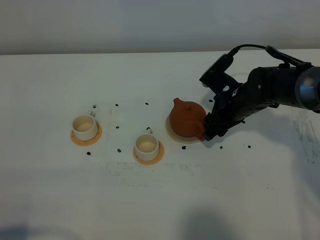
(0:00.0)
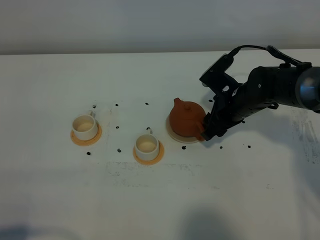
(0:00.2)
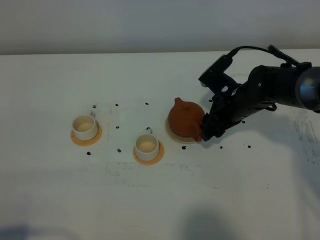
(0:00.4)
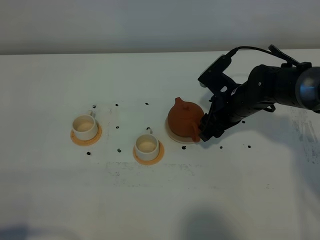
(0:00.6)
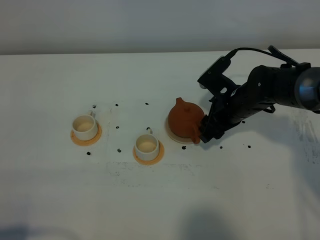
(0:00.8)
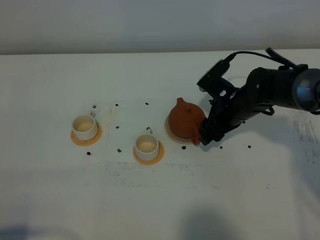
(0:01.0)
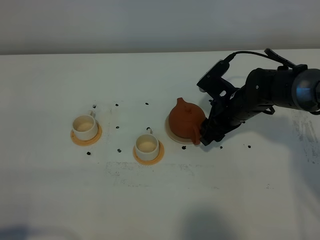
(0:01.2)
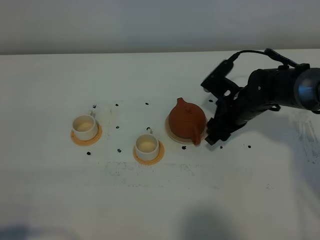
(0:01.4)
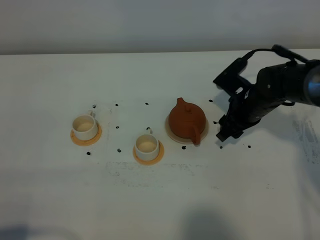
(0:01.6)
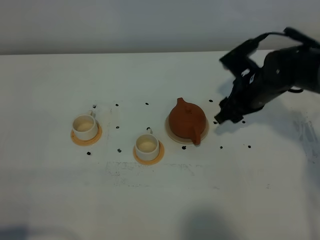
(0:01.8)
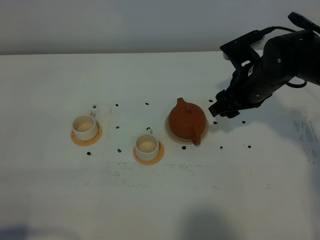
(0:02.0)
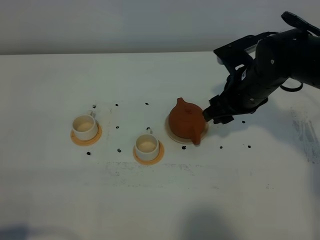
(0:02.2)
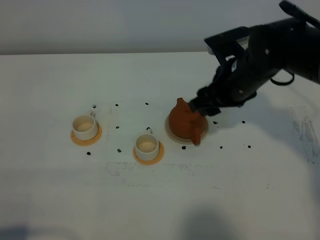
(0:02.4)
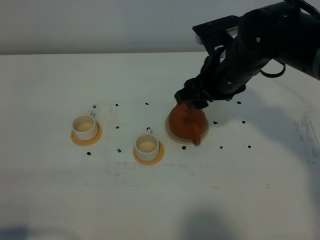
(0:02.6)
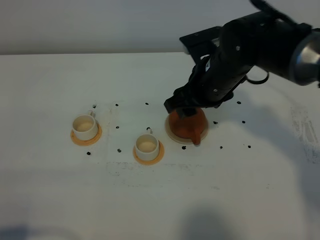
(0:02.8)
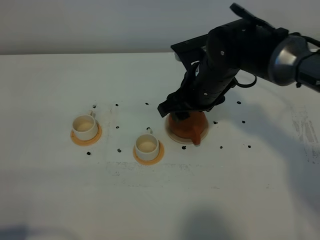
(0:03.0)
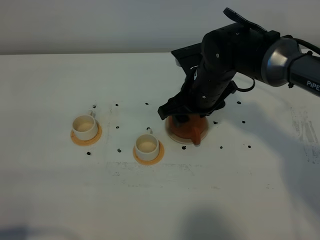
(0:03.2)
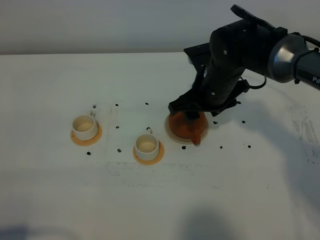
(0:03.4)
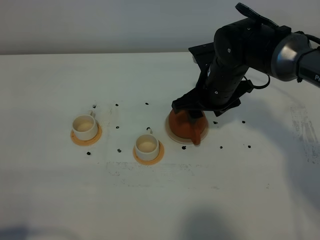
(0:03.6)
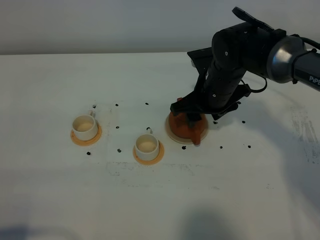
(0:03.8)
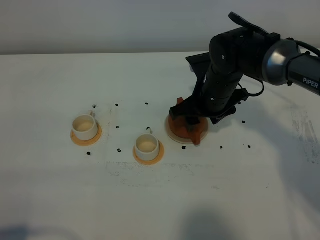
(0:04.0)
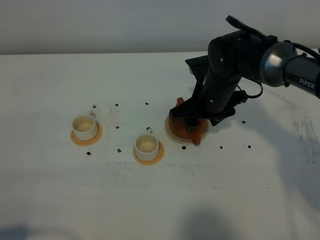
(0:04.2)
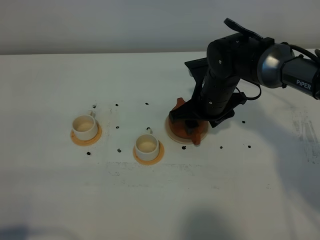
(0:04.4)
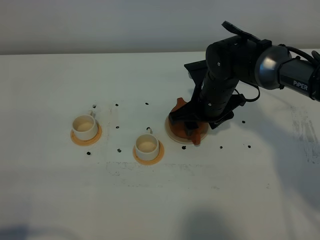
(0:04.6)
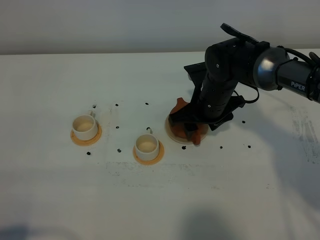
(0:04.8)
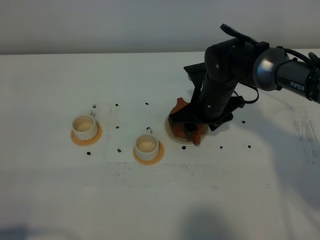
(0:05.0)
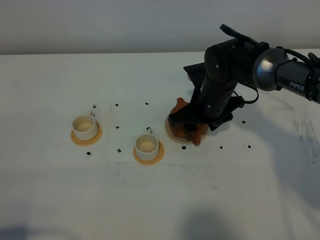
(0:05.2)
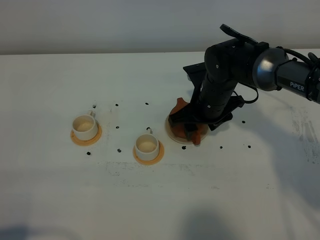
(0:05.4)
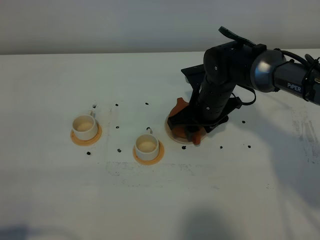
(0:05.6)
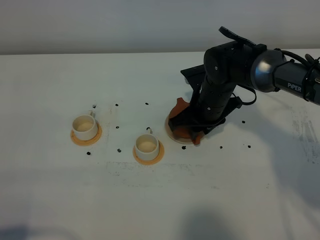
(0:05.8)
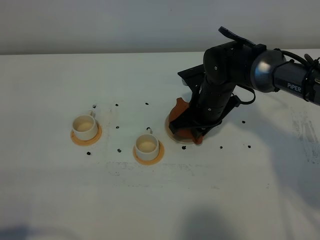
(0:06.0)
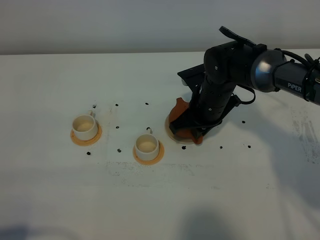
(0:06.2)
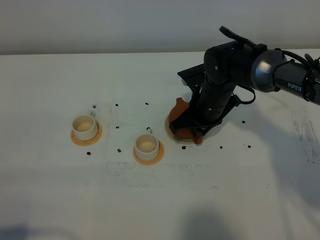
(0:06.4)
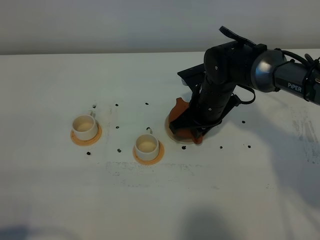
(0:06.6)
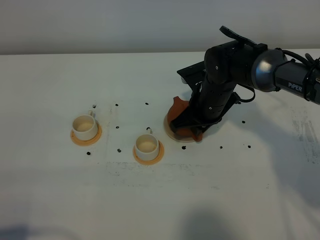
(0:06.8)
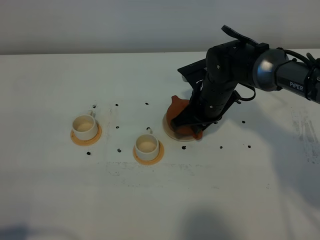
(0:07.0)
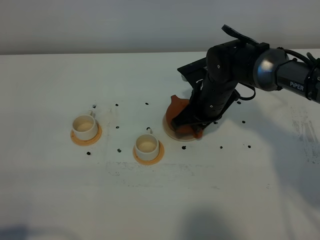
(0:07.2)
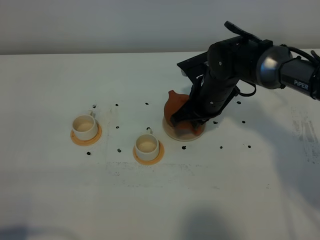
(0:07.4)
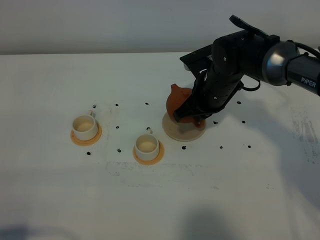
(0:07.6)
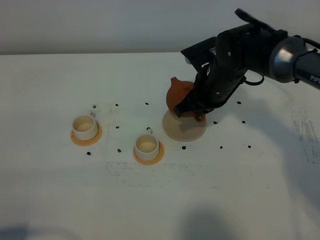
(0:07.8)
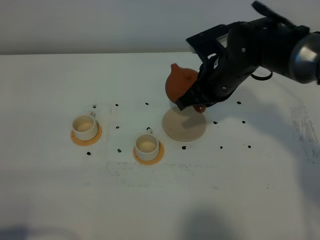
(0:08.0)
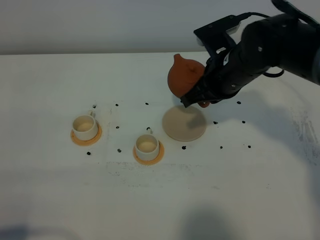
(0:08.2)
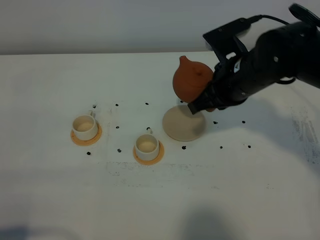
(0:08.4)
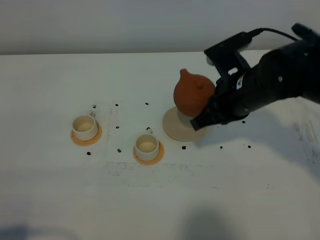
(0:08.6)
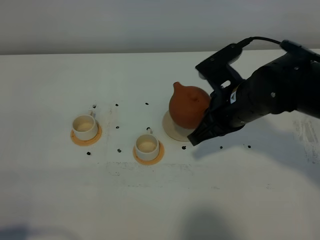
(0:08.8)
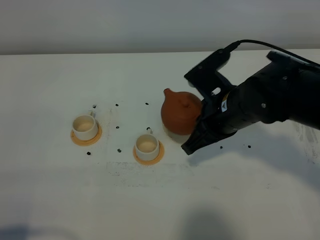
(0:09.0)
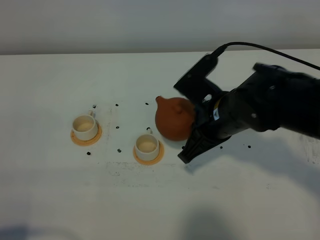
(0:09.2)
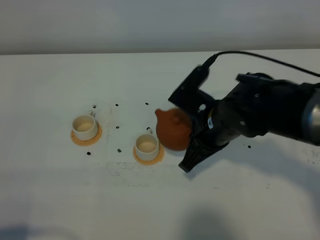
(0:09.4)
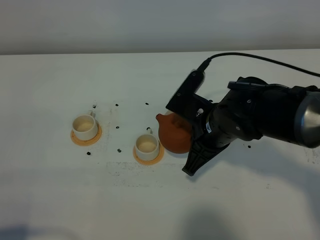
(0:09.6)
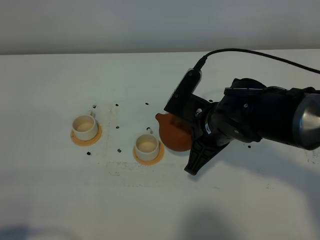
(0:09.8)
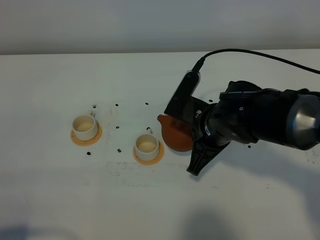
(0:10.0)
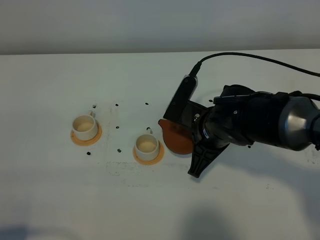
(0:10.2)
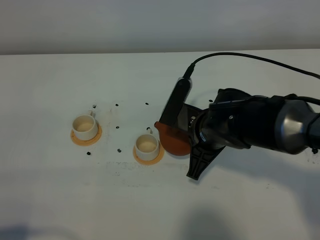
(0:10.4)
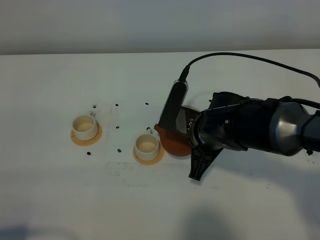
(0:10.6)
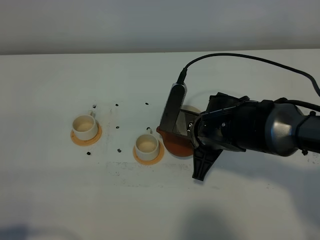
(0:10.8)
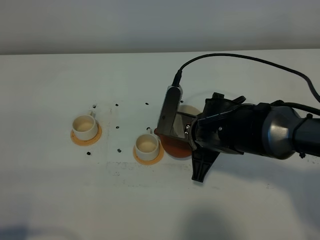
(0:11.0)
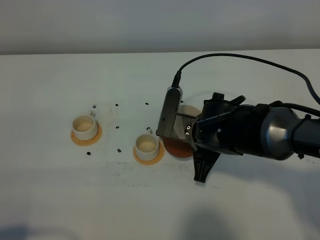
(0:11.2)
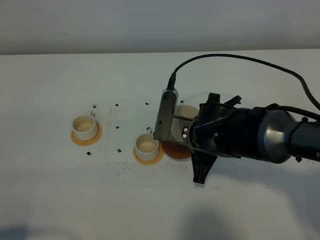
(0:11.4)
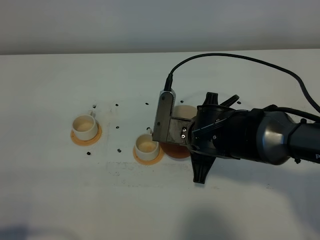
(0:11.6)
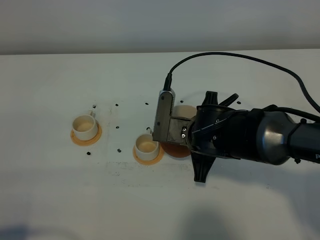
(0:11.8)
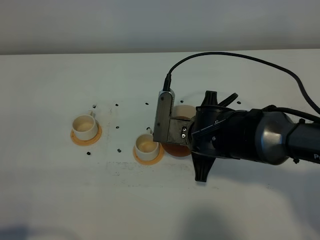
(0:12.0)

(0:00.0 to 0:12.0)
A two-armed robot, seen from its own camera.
Task of the whole recording: grasp the brown teapot and pour the tea into the two white teacups one by one, put the brown teapot back in its original place.
Step, 0:00.0 - 0:07.4: Pick up the teapot with the right gripper.
0:00.0 - 0:01.6: The grippers move only a little.
0:01.6 - 0:03.0: The right gripper goes approximately 15 cm to the left and upward.
0:03.0 - 0:04.4: The right gripper shifts by some 5 cm.
0:04.4 - 0:06.0: The right gripper closes up.
0:06.0 - 0:07.6: The grippers move only a little.
0:07.6 - 0:09.0: The right gripper heads backward, covering about 10 cm.
0:09.0 - 0:10.4: The right gripper changes place by roughly 5 cm.
0:10.4 - 0:12.0: The grippers make only small movements.

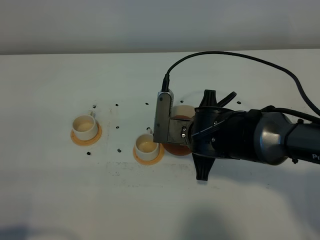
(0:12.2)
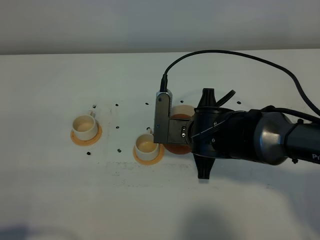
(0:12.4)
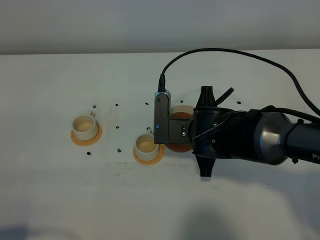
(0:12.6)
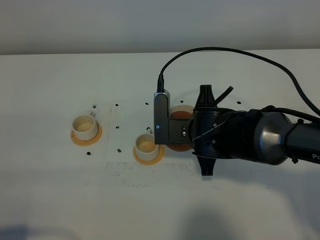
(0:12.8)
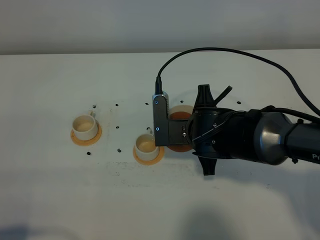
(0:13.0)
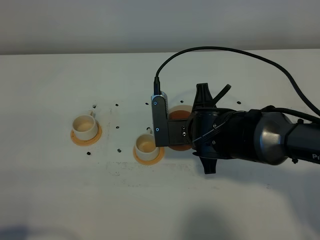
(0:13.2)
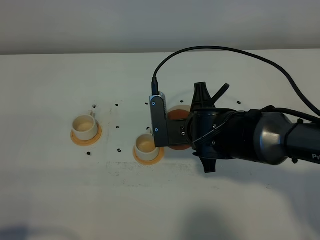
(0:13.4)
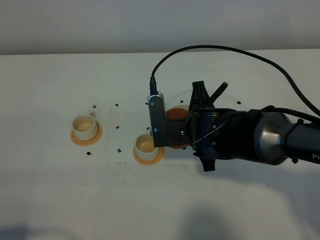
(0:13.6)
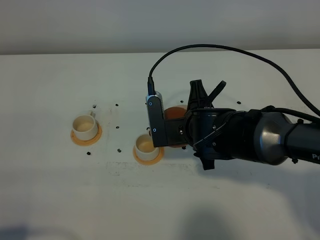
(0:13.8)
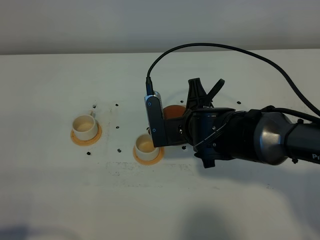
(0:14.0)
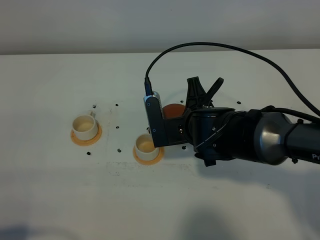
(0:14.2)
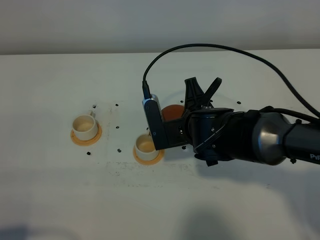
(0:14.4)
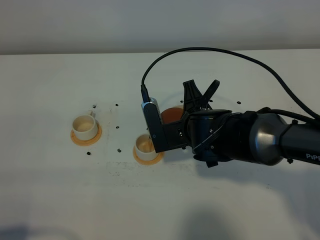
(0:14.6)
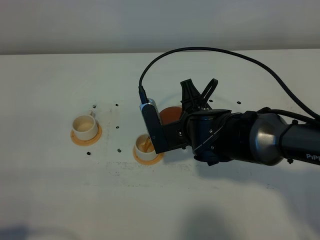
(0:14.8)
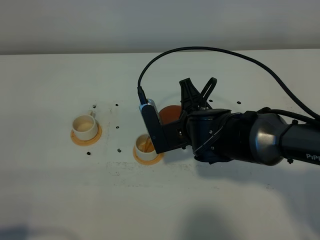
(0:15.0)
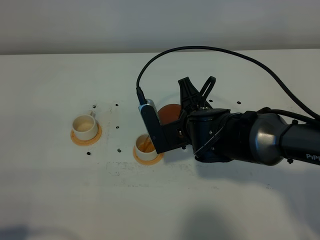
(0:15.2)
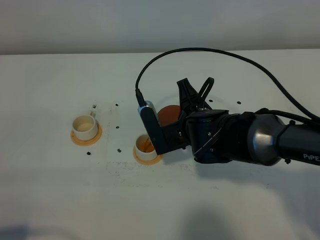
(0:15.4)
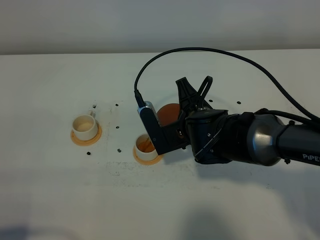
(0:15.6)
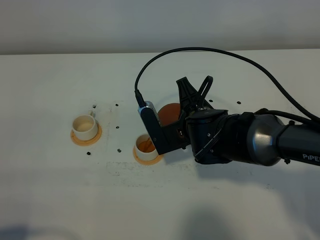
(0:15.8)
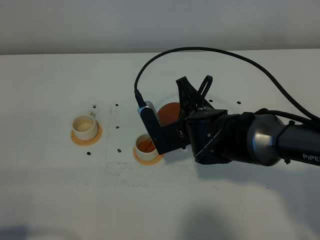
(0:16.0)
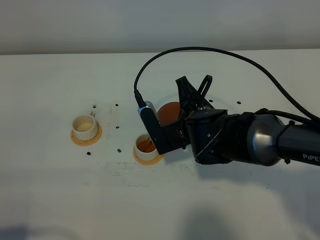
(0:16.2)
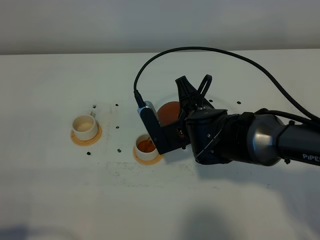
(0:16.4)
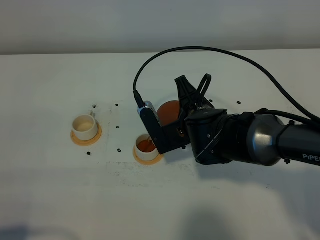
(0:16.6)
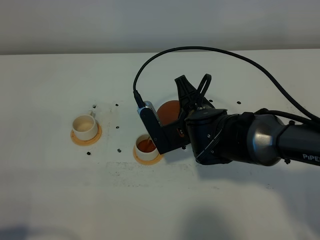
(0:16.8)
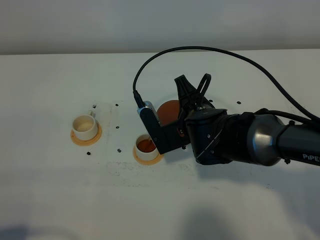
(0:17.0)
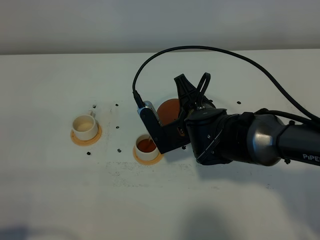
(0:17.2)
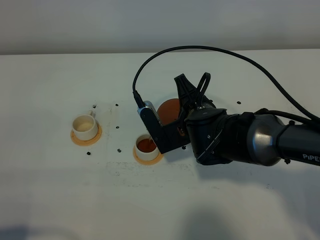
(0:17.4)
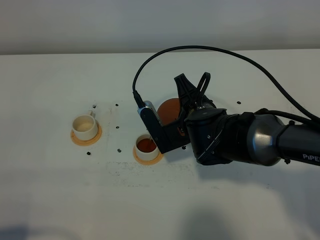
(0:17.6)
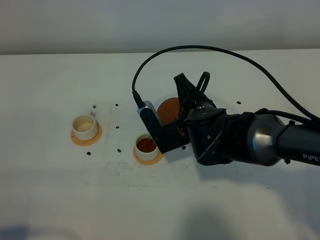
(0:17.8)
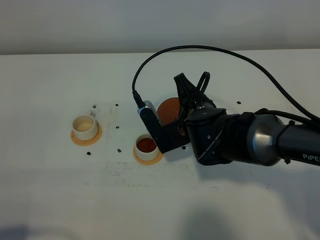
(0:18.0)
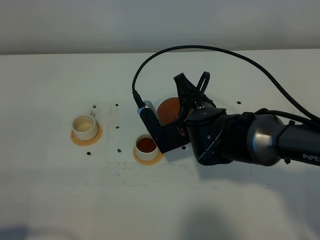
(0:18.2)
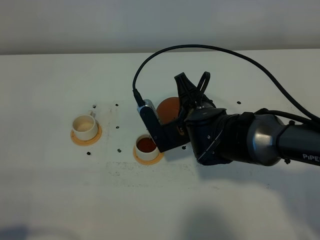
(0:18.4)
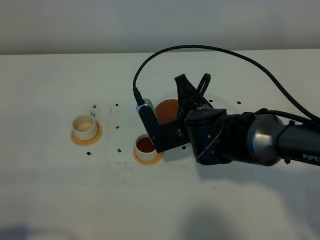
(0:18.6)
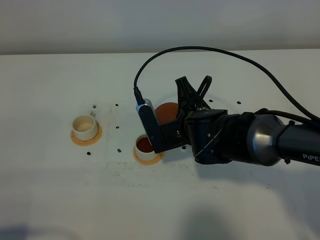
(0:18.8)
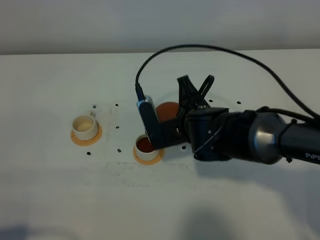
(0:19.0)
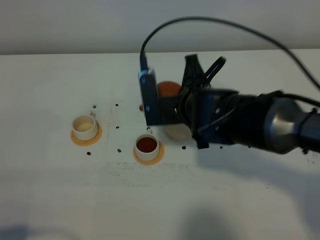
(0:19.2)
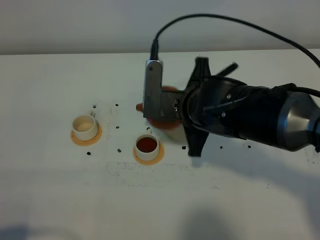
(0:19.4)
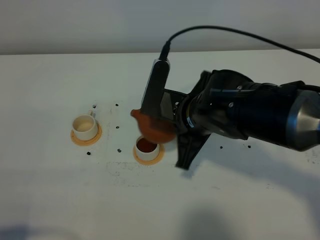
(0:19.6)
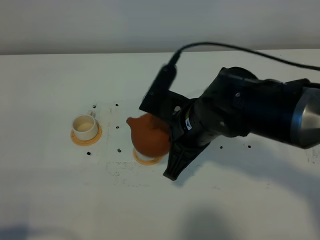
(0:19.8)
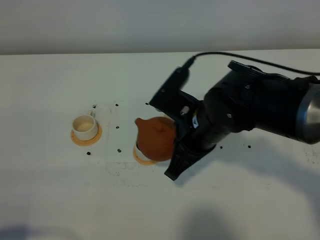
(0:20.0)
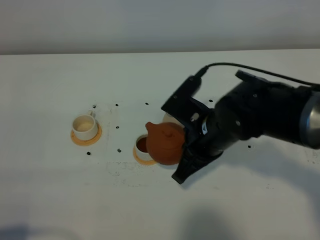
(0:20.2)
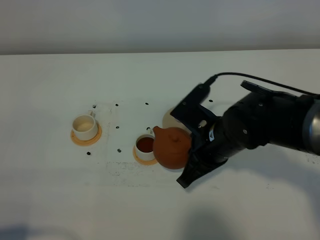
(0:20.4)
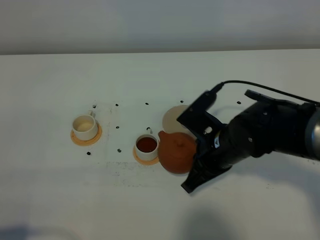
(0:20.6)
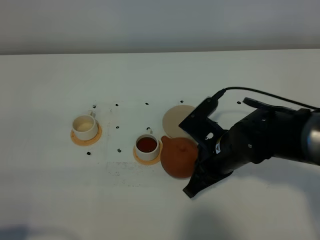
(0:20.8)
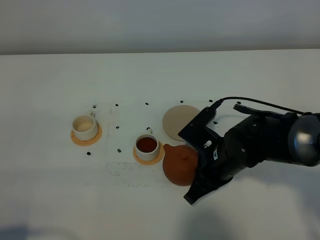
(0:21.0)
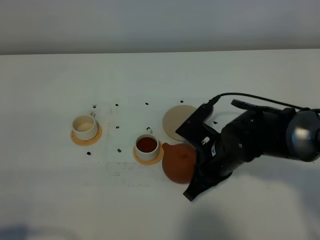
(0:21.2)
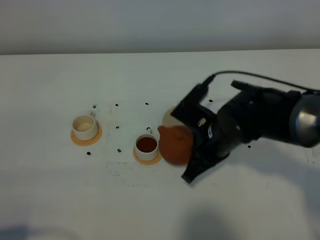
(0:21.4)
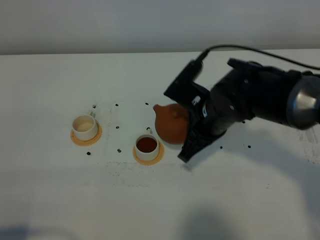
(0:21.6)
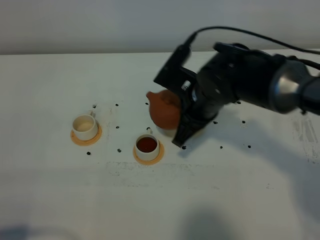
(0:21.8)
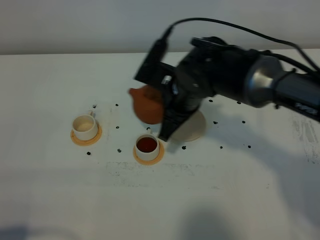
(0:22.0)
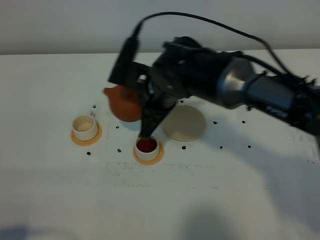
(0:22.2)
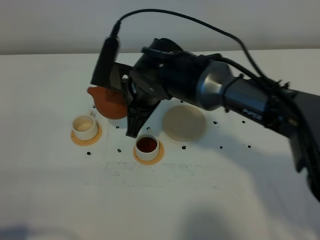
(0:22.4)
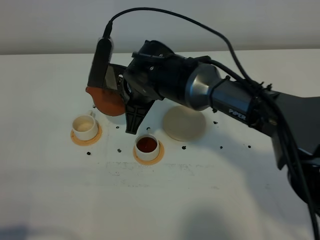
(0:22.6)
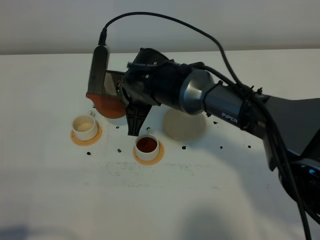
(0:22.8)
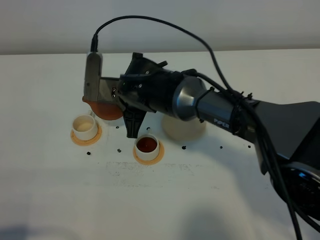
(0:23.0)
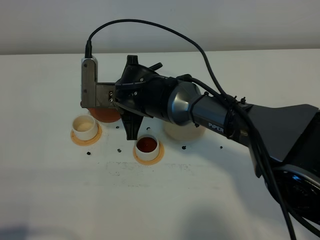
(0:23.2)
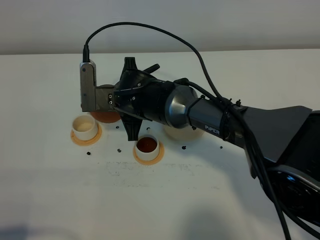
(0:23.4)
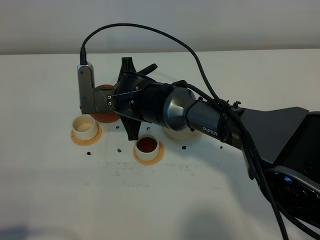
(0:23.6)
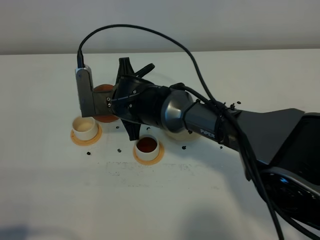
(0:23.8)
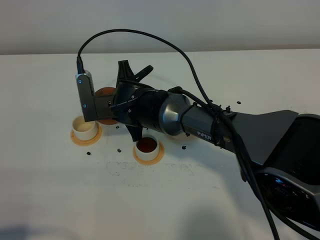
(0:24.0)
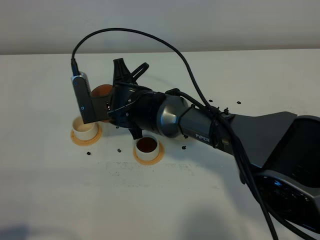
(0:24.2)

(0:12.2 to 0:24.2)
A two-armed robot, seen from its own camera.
Task of the whole recording: grasp the brown teapot and pour the tea into the two white teacups one by one, put the brown teapot back in its original place.
Step, 0:12.2 - 0:19.0: Pour tea into the teacup with the right gripper.
0:12.2 - 0:13.8: The grippers make only small movements.
0:13.8 - 0:16.6: The grippers make only small movements.
0:16.6 - 0:18.2: Neither gripper changes place.
0:18.2 - 0:19.8: The right gripper travels upward by some 5 cm.
0:19.8 - 0:21.2: The right gripper goes about 10 cm downward.
0:21.2 - 0:22.6: The right gripper travels to the left, forward and upward by some 15 cm.
0:22.6 - 0:24.2: The right gripper changes place by approximately 5 cm.
